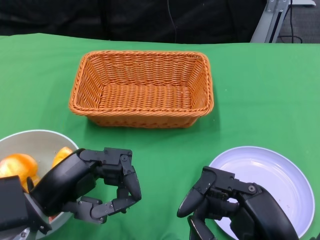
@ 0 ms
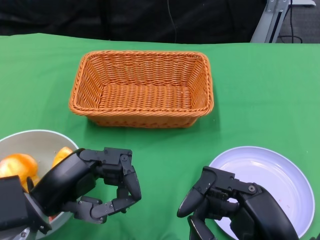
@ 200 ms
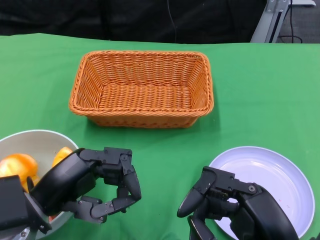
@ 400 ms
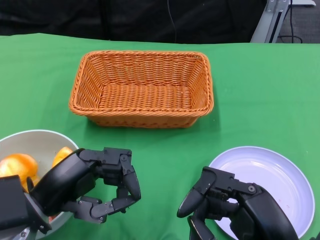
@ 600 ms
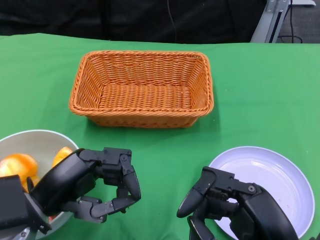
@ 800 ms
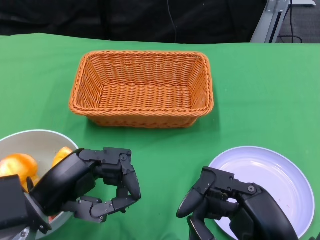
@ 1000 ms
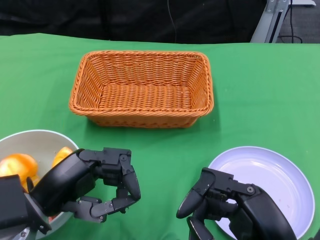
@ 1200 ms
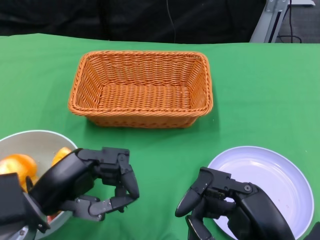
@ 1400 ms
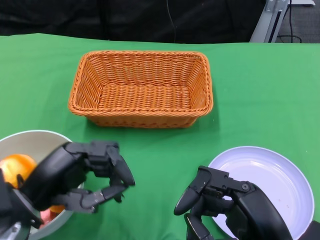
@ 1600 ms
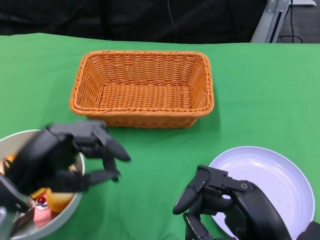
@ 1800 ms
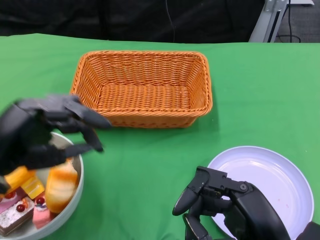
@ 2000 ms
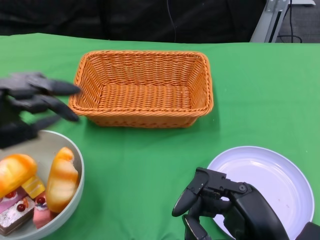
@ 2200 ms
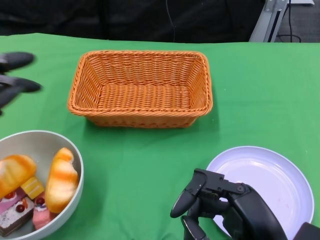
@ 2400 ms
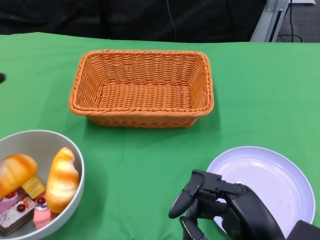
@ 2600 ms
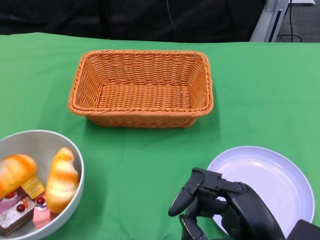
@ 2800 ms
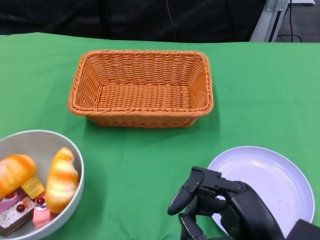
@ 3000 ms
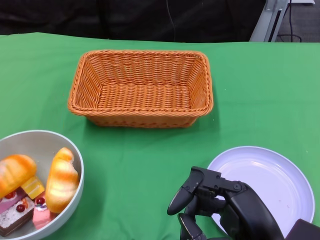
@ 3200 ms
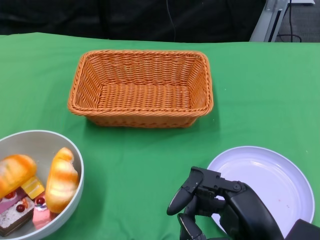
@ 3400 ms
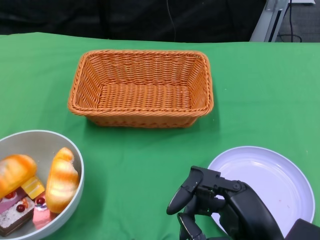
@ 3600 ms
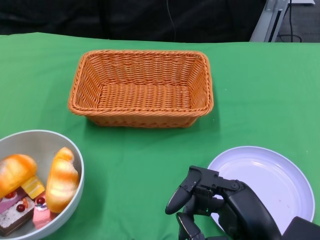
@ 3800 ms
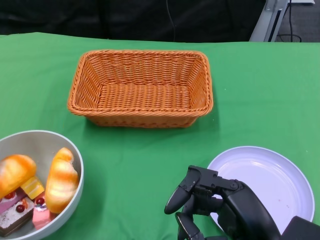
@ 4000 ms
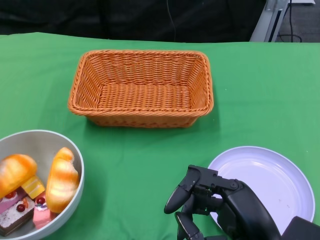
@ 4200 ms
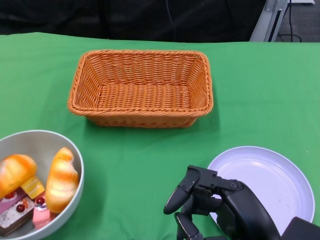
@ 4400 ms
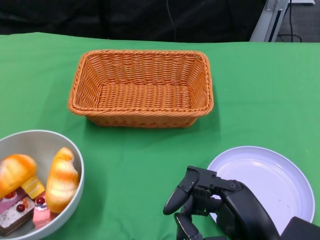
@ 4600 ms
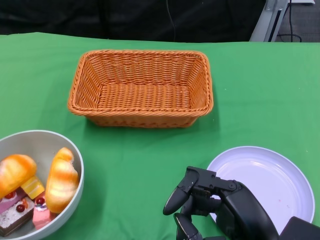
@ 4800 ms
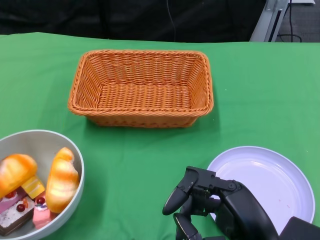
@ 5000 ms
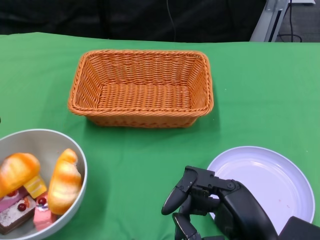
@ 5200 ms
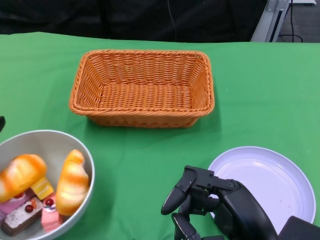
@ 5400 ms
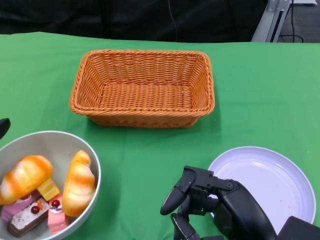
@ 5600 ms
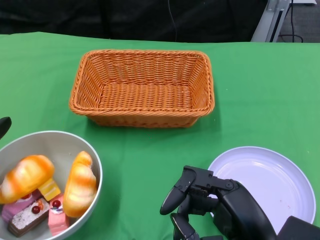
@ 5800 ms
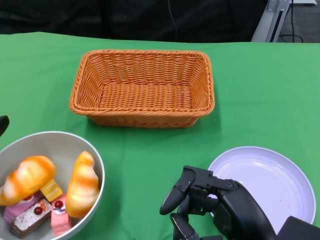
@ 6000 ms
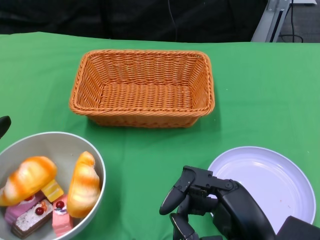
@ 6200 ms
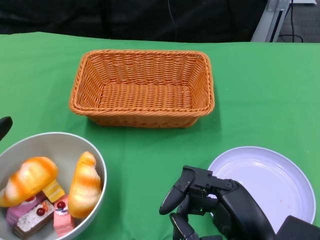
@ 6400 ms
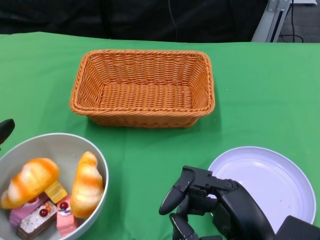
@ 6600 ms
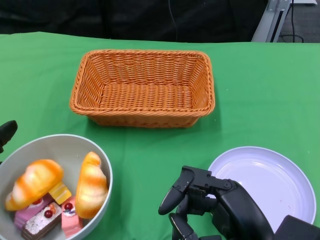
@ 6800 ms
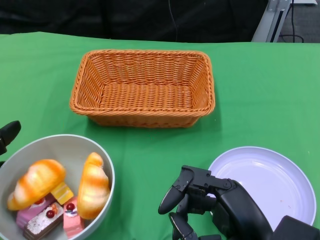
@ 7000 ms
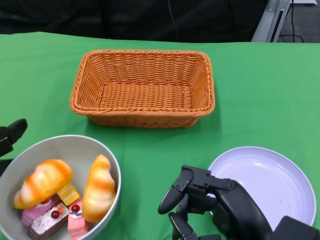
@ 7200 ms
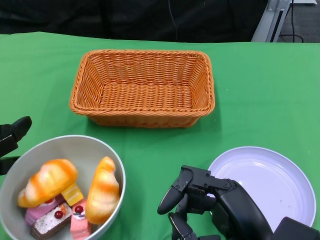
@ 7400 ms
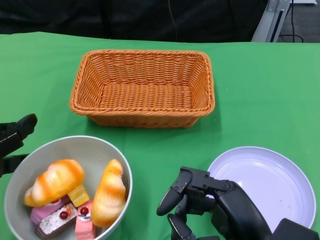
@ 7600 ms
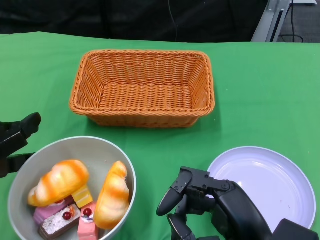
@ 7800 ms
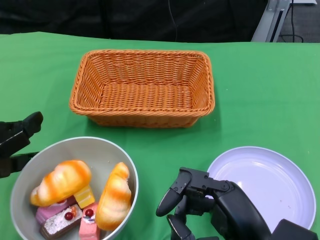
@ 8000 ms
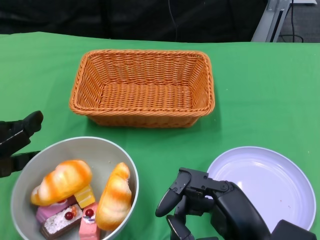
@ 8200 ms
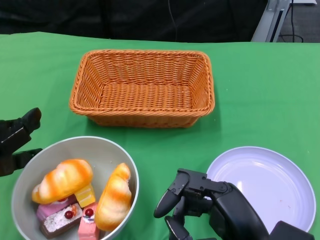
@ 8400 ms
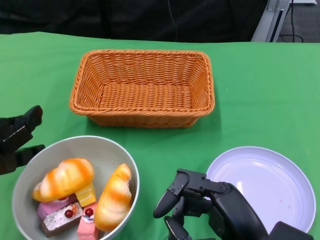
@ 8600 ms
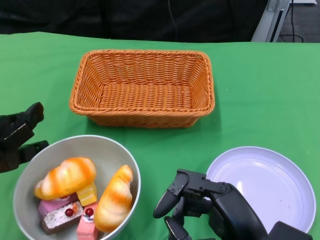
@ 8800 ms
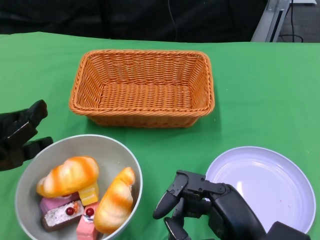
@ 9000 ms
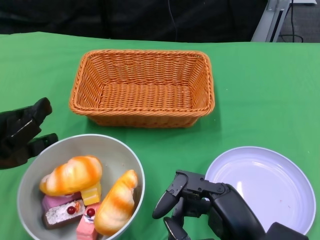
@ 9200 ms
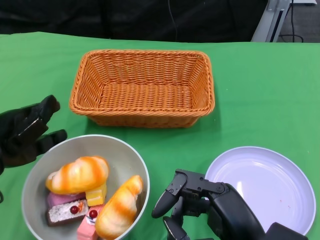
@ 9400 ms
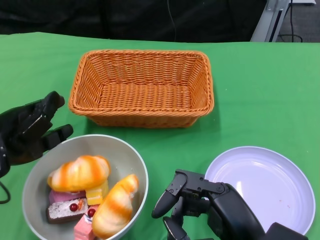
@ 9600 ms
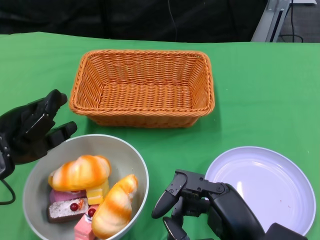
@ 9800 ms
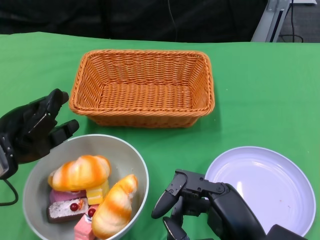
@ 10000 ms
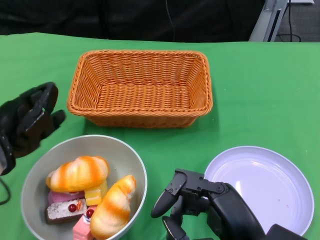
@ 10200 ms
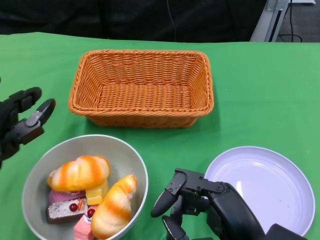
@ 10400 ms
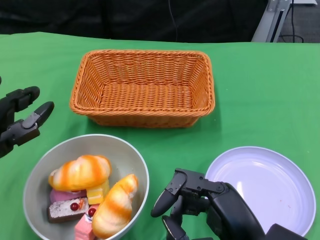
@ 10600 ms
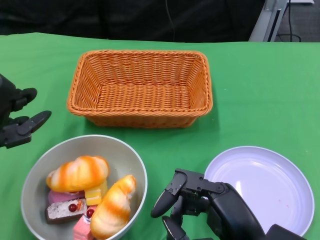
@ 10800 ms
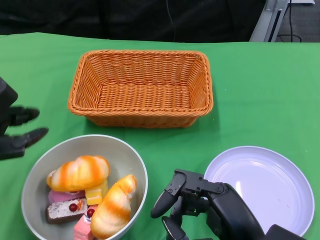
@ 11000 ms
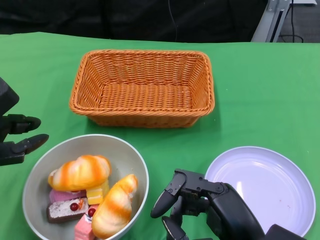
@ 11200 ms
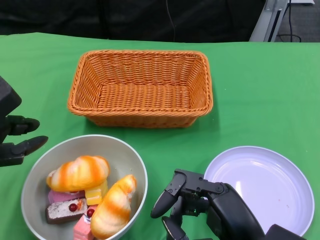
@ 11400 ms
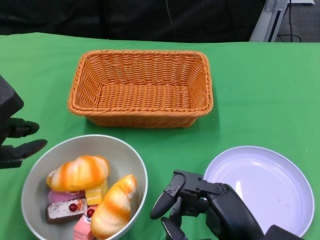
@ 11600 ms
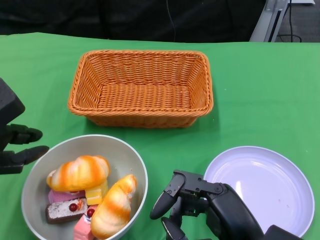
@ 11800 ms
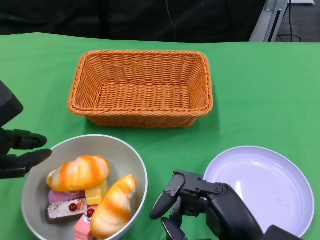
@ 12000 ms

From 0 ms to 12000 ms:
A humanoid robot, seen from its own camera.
From 1600 ms to 3000 ms: The left hand moves to the left, roughly 10 cm.
From 4400 ms to 6000 ms: The hands make only small movements.
From 6000 ms to 9000 ms: The hands move only a little.

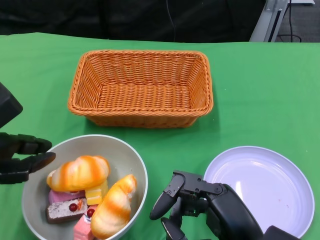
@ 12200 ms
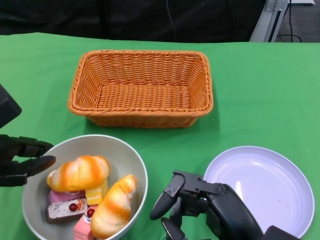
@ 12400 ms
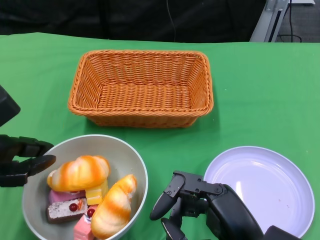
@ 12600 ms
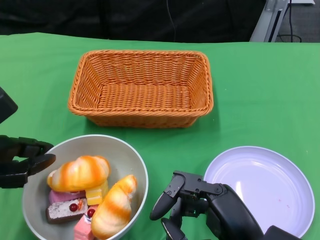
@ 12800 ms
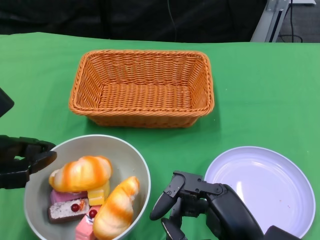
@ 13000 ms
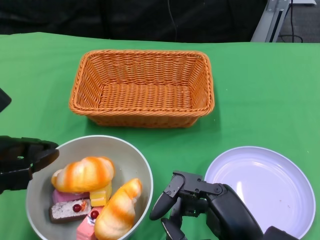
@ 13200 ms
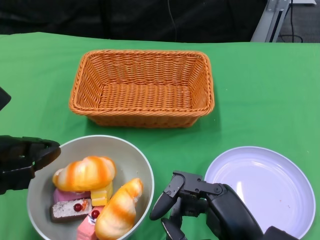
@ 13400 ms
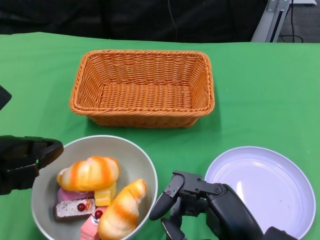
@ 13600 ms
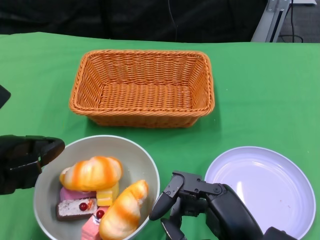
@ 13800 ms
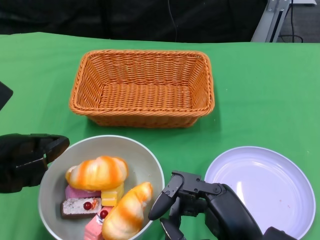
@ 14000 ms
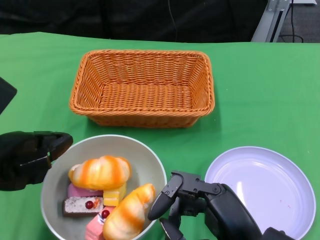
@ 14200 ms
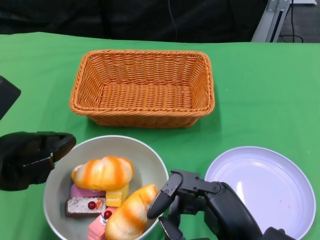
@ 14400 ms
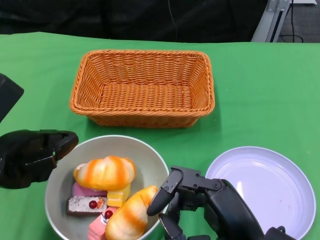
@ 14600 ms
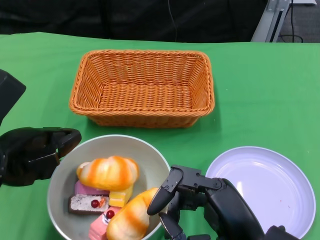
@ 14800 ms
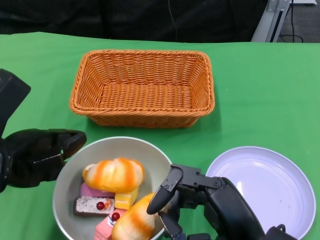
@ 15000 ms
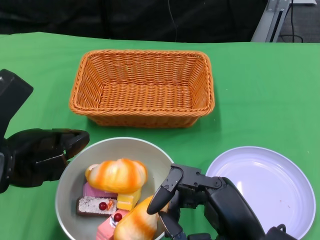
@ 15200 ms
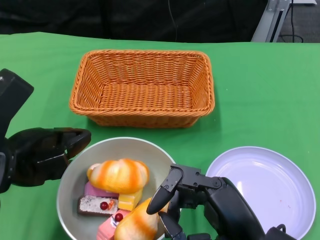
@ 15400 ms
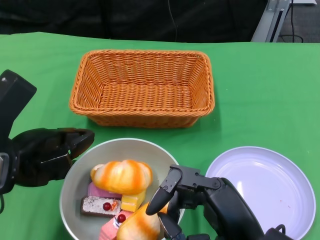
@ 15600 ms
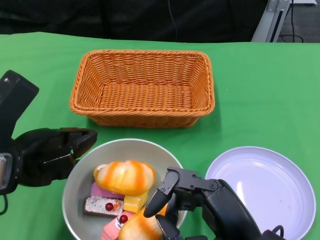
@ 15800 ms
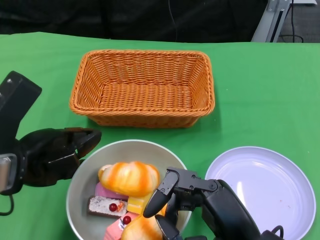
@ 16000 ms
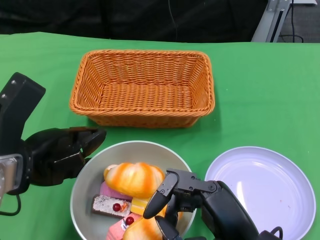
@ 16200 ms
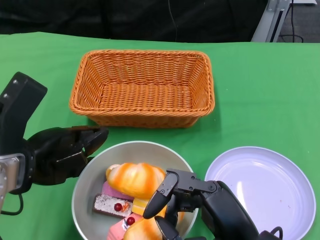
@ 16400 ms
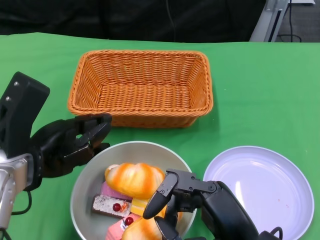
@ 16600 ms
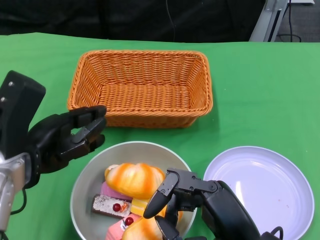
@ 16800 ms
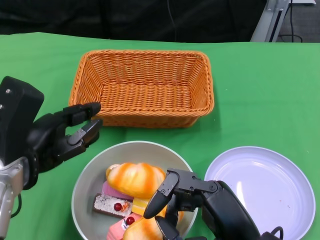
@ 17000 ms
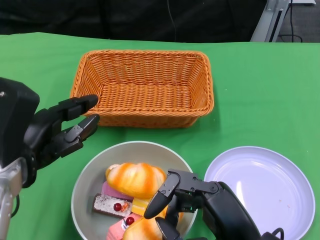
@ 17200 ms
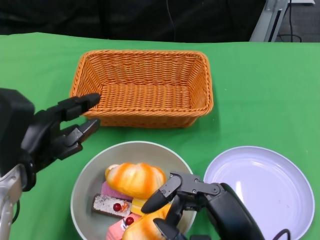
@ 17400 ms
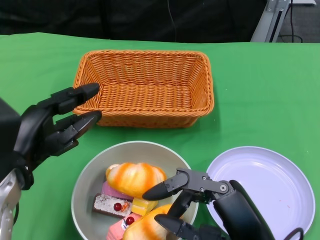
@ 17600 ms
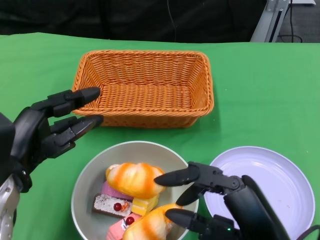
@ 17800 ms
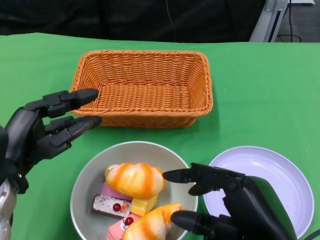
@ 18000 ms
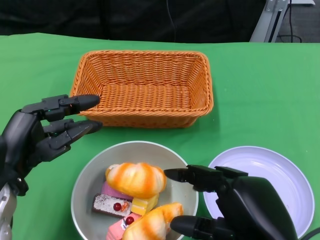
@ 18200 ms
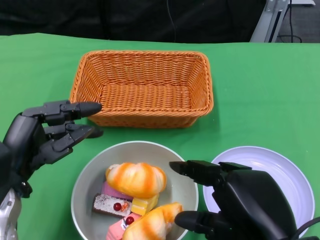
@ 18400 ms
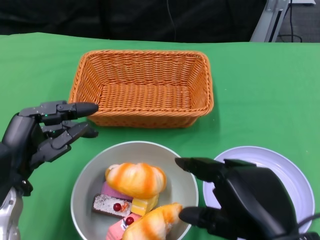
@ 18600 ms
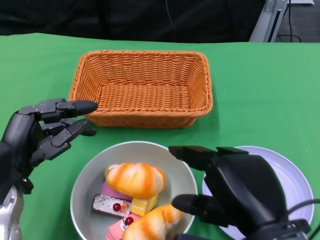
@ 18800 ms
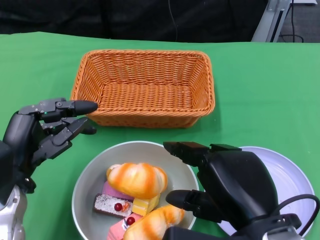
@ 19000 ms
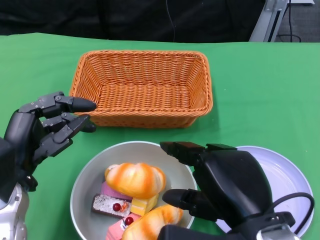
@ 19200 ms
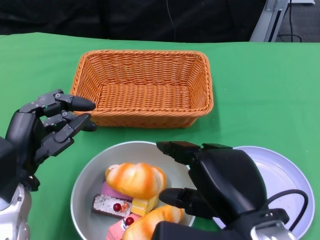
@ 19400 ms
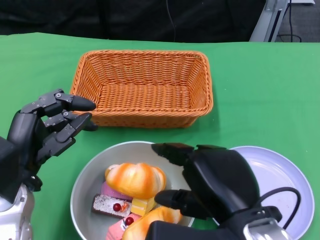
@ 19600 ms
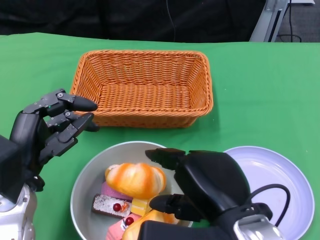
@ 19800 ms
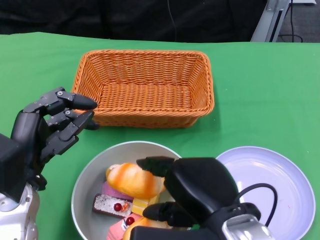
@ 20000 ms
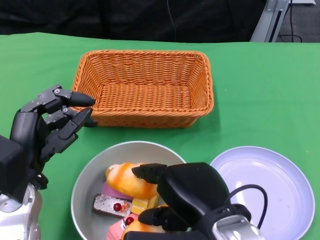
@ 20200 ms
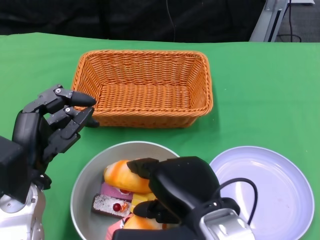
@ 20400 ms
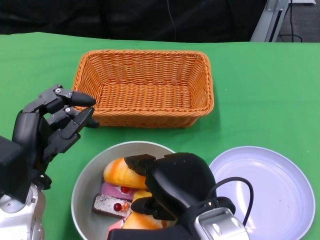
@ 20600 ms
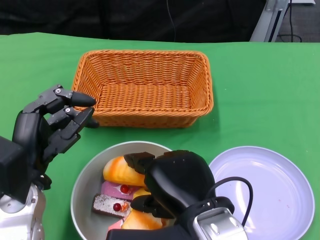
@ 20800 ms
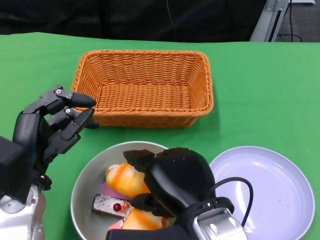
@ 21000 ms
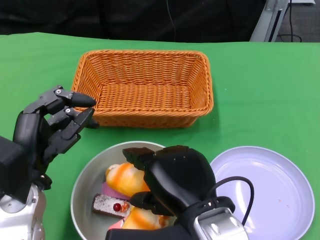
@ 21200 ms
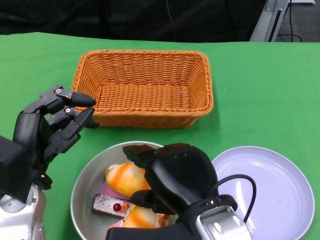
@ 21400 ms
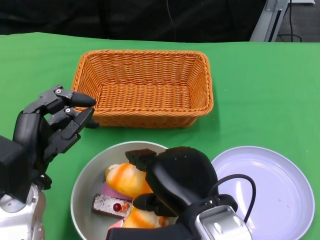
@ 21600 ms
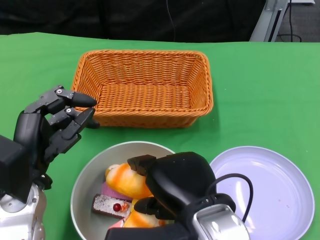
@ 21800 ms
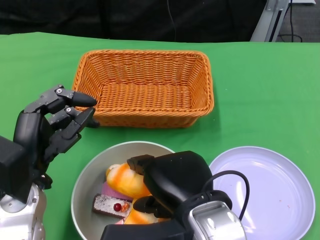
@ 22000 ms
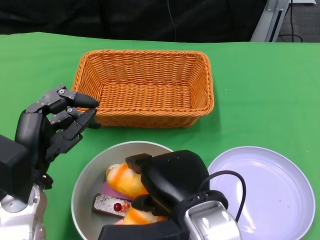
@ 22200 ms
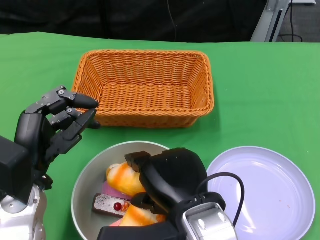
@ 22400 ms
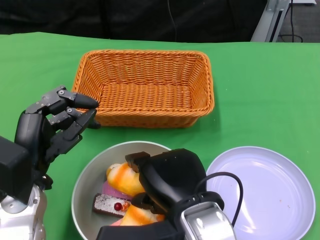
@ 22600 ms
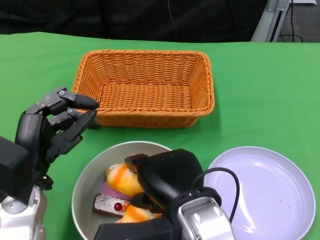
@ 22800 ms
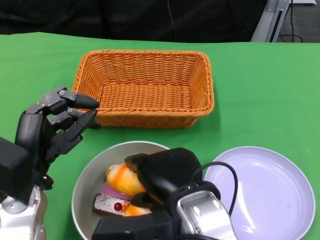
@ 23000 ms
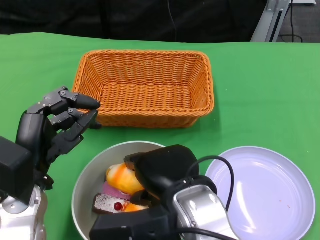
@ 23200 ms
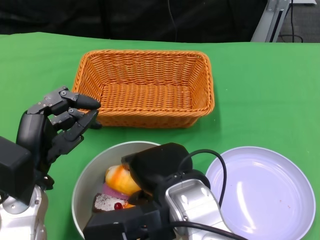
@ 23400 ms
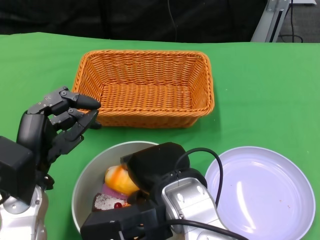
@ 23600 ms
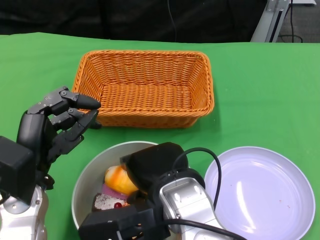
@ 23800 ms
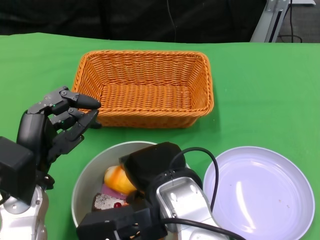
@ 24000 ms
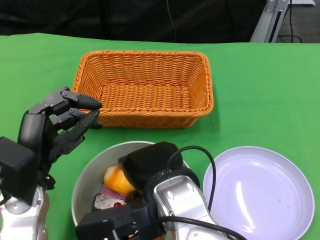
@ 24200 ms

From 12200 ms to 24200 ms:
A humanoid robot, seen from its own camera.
Step, from 12200 ms to 16000 ms: Push the bowl to the center of the table using the left gripper.
From 12200 ms to 13800 ms: The hands make only small movements.
From 13800 ms to 15200 ms: The hands make only small movements.
From 18200 ms to 19800 ms: The right hand ends up some 5 cm from where it was.
From 19800 ms to 22600 ms: The hands make only small movements.
From 22600 ms to 24200 ms: The hands make only small movements.
